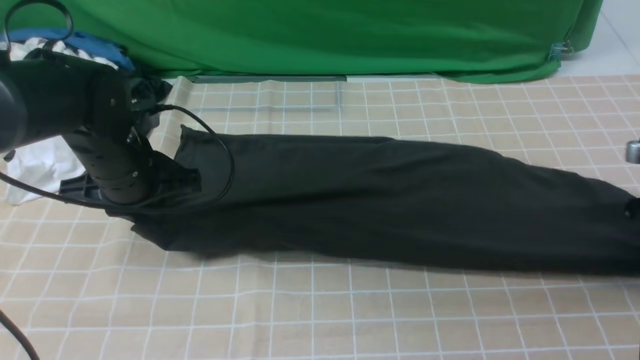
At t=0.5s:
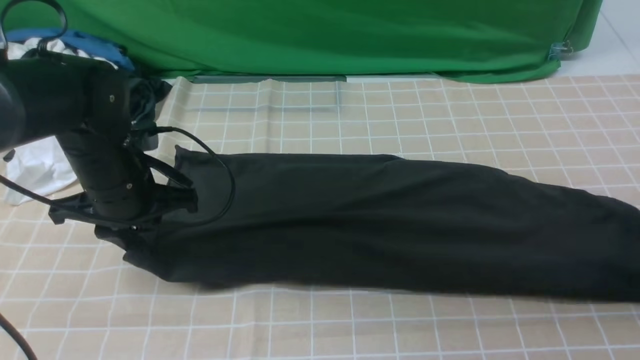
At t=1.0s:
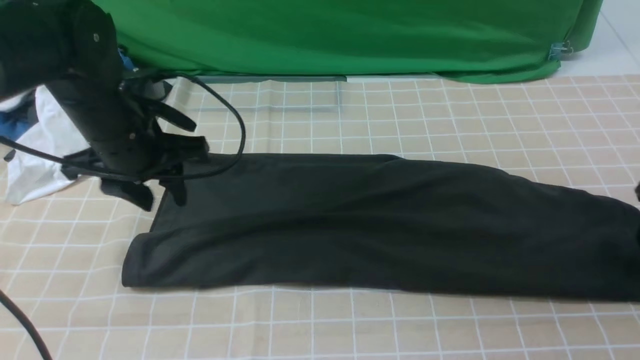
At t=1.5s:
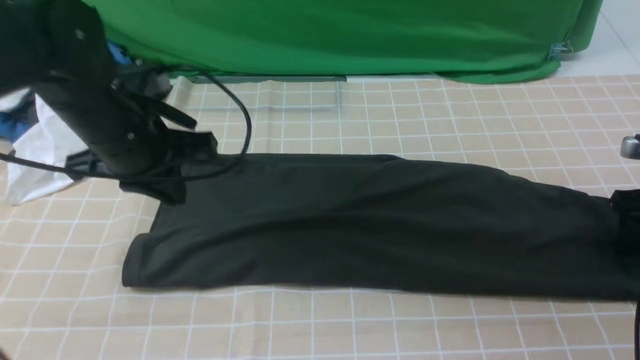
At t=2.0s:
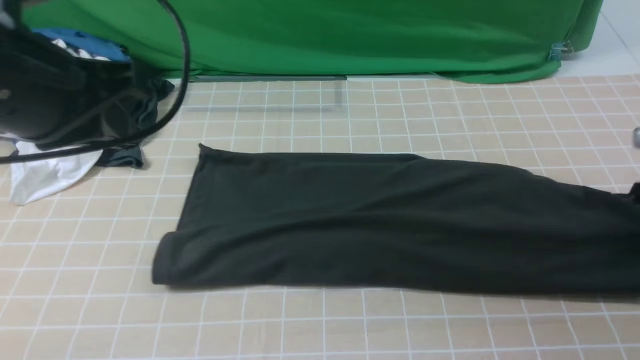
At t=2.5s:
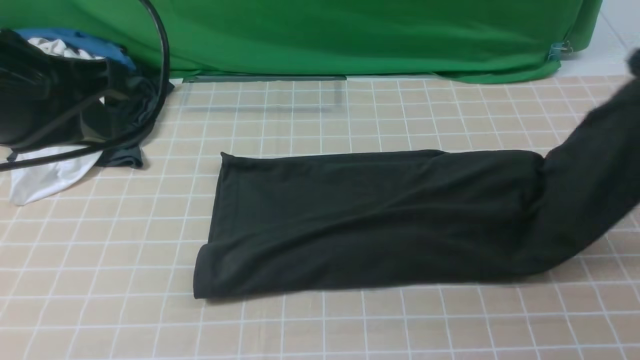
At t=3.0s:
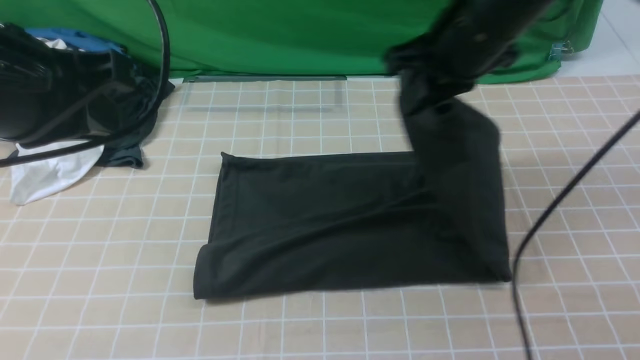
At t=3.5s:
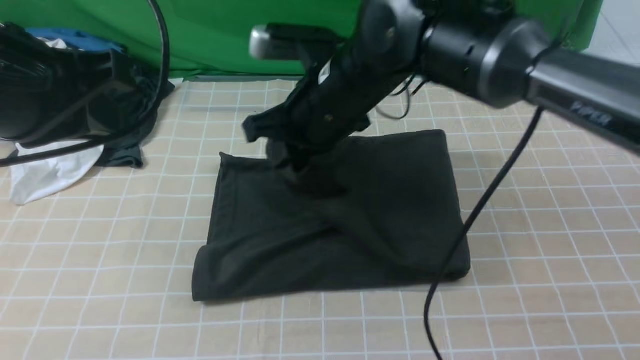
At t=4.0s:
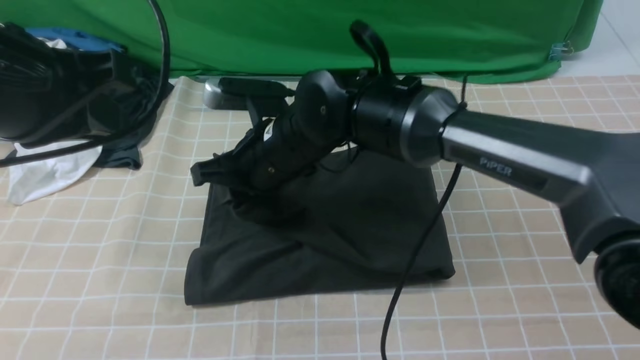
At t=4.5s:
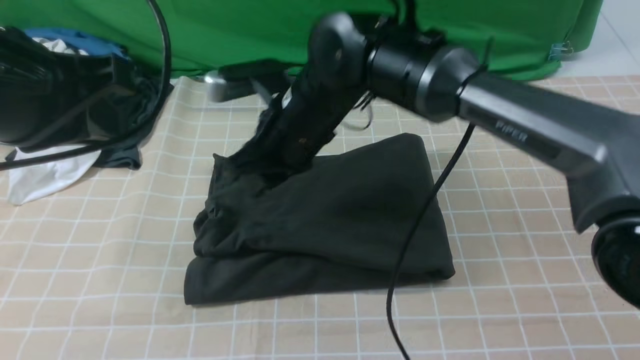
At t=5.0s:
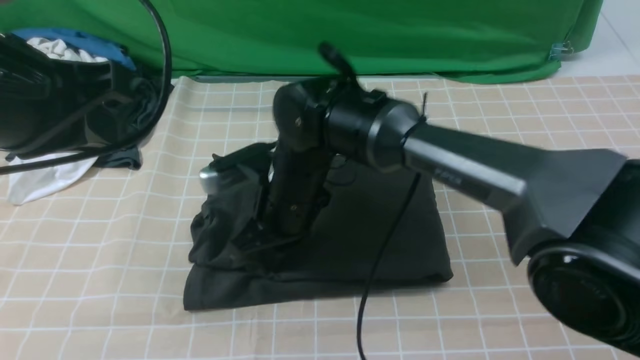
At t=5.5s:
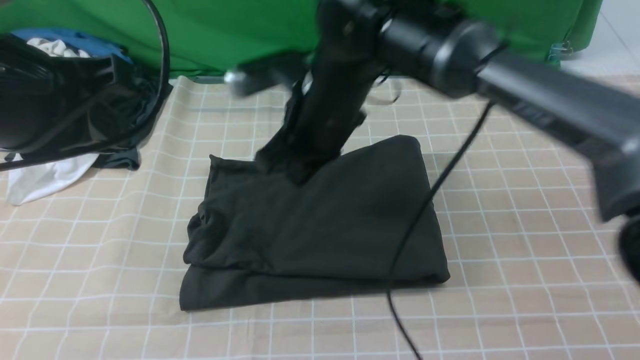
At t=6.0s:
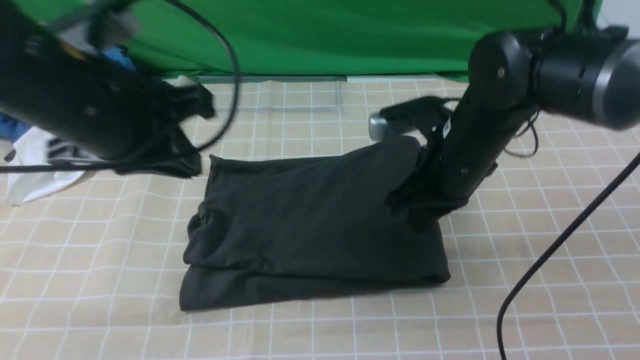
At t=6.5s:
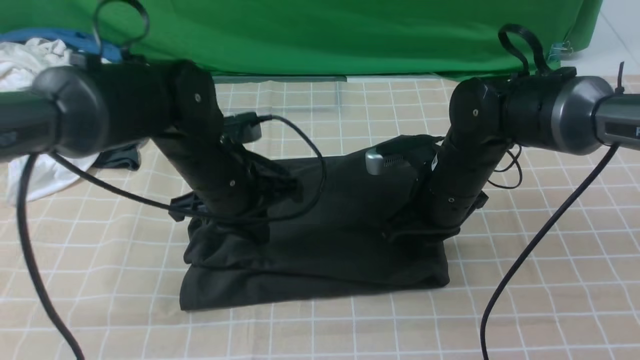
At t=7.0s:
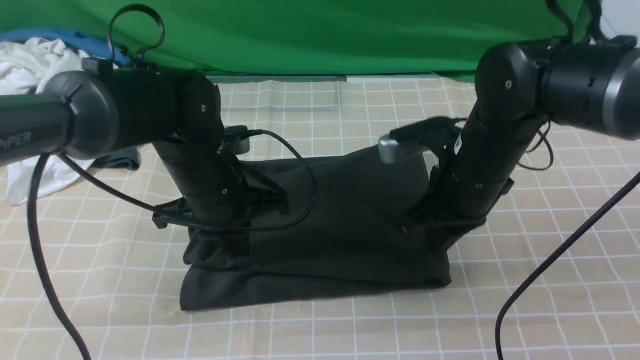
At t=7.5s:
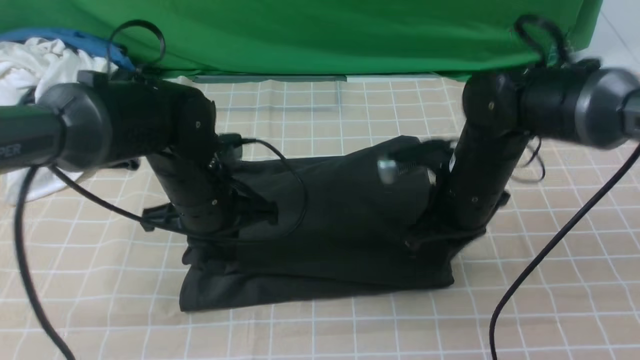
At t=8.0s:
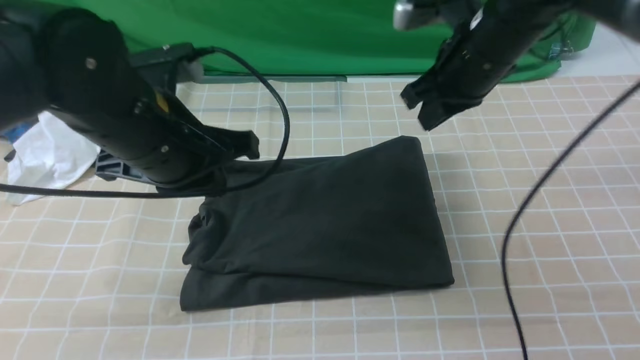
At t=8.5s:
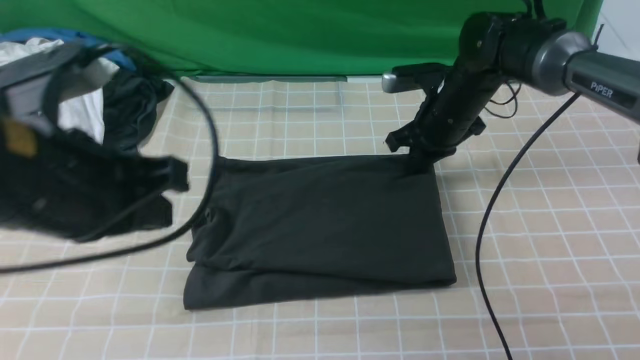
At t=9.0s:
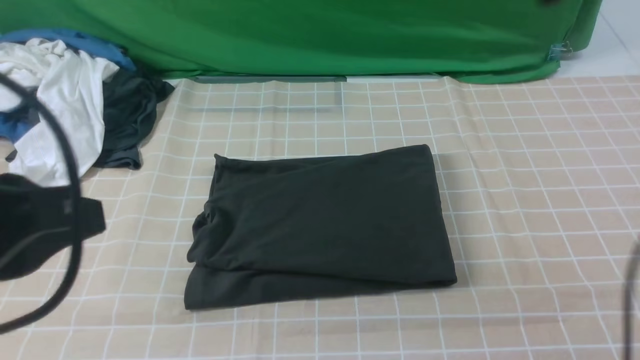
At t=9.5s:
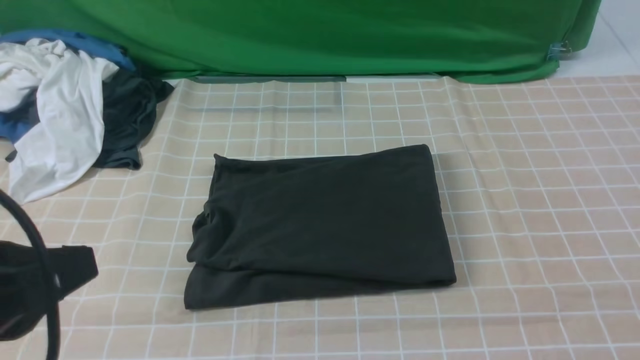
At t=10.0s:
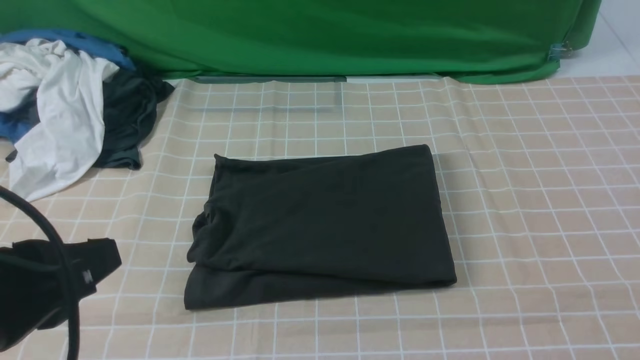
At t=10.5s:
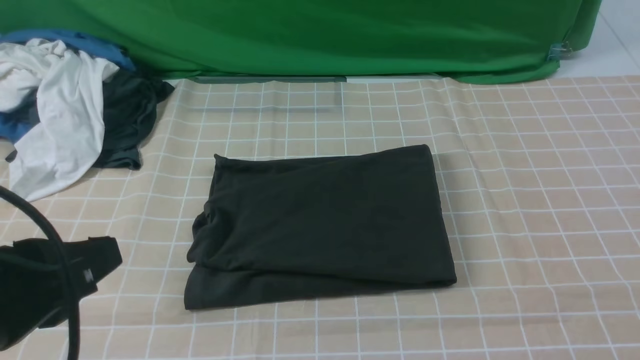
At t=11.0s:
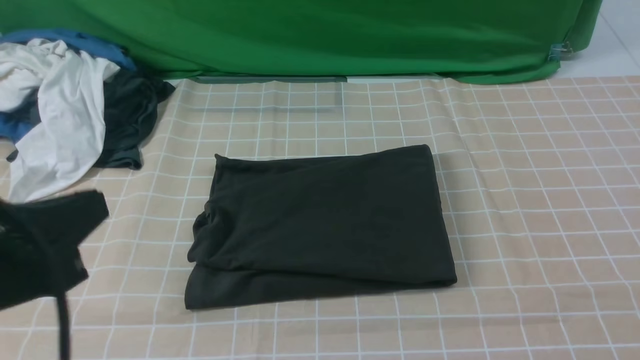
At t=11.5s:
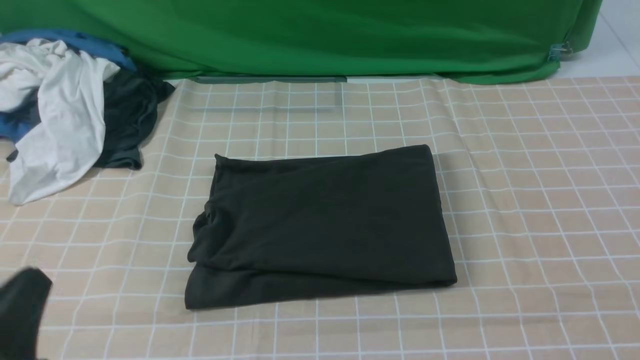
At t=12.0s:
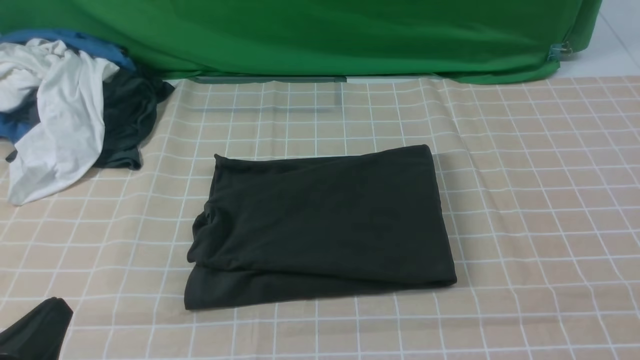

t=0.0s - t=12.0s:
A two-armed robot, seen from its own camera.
Step, t=2.0s - t=4.0s: use the right arm to drag the right edge of the fabric to the left and folds it over the left edge.
t=0.0s - t=2.0s: The right gripper opens and closes again. The left gripper is displaced upward and backward by some 20 cm.
t=2.0s - t=4.0s: The right gripper moves to the left, some 50 cm.
t=4.0s - t=6.0s: The right gripper heads to the right, covering about 15 cm, and closes. The left gripper shifts roughly 10 cm downward and forward.
t=6.0s - t=8.0s: The left gripper moves roughly 15 cm downward and comes back; the right gripper heads forward and upward, covering about 10 cm.
t=8.0s - t=10.0s: The left gripper moves backward, about 20 cm. The right gripper shifts some 40 cm backward and to the right.
t=10.0s - t=12.0s: The left gripper shifts some 15 cm downward.

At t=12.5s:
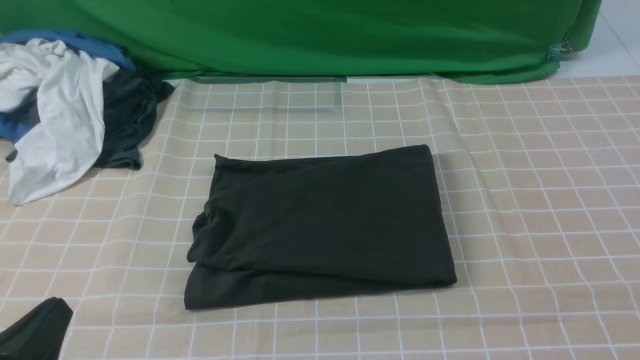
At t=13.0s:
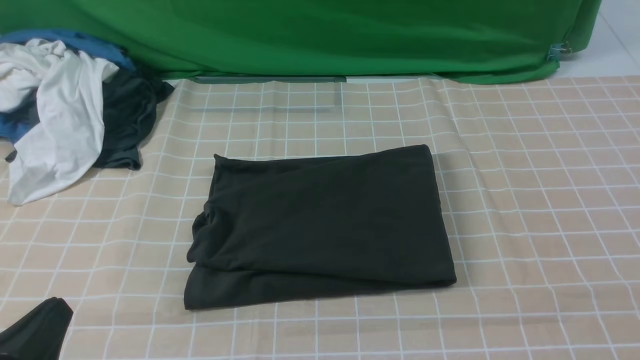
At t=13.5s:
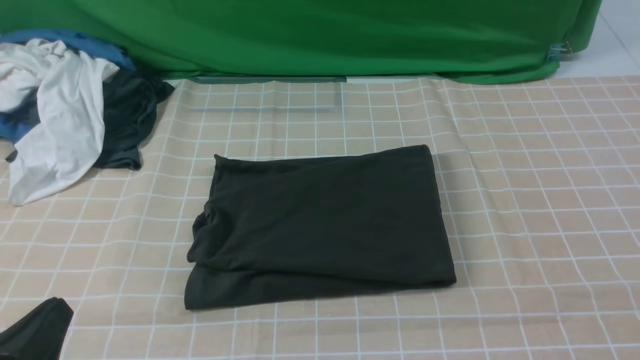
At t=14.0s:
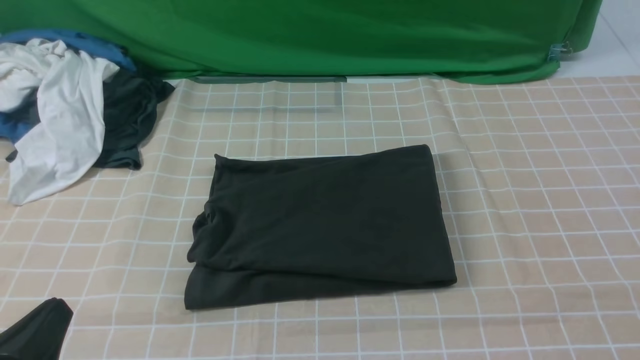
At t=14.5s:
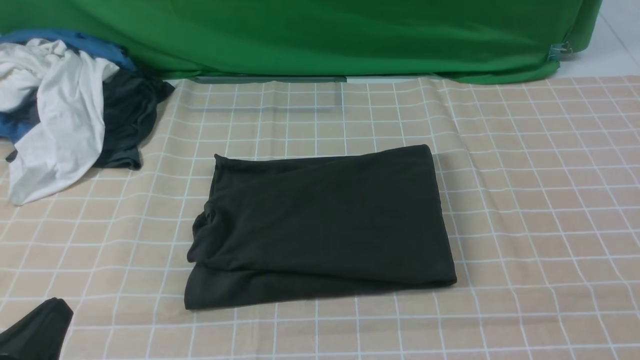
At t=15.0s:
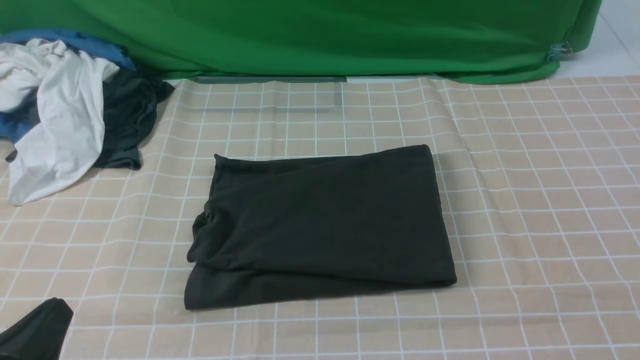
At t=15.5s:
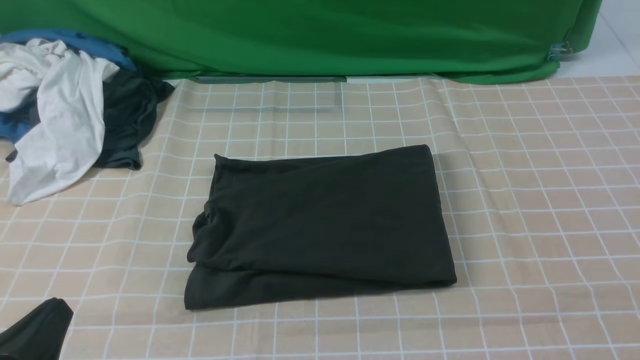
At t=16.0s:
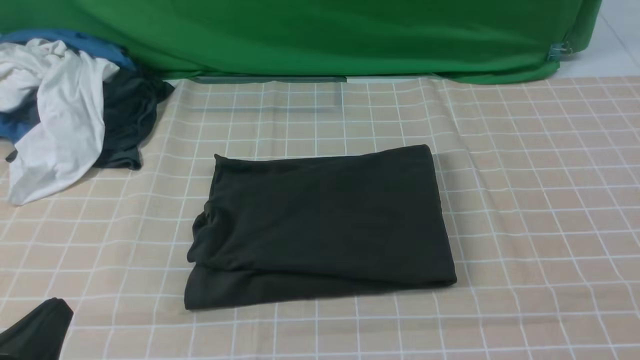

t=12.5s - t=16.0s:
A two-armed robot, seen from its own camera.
t=14.5s - t=16.0s: Neither gripper changes place.
